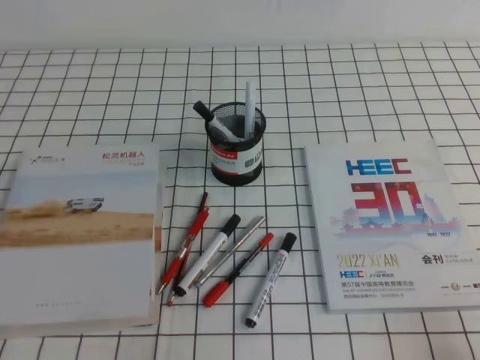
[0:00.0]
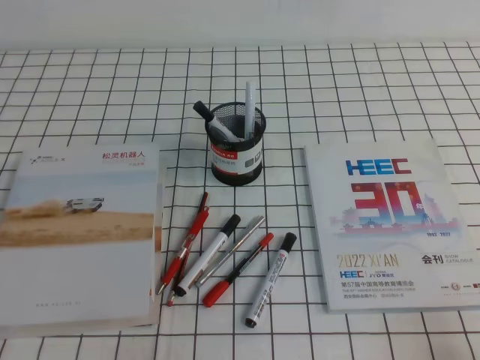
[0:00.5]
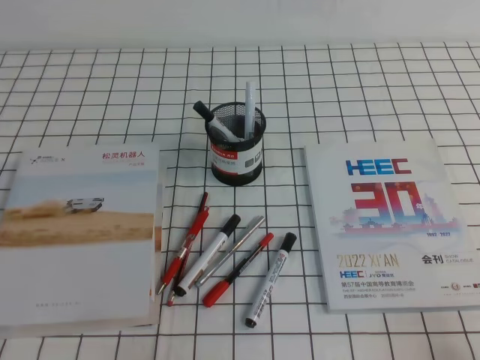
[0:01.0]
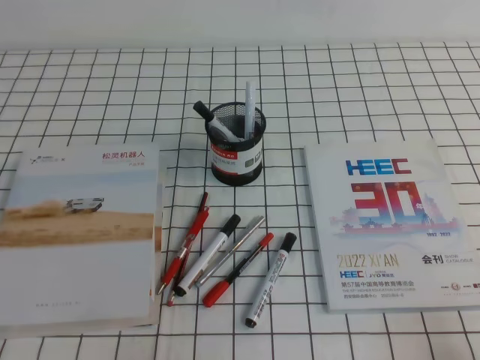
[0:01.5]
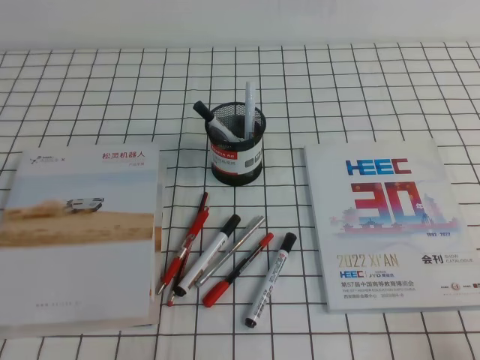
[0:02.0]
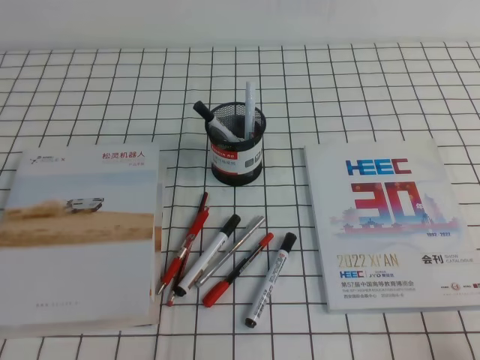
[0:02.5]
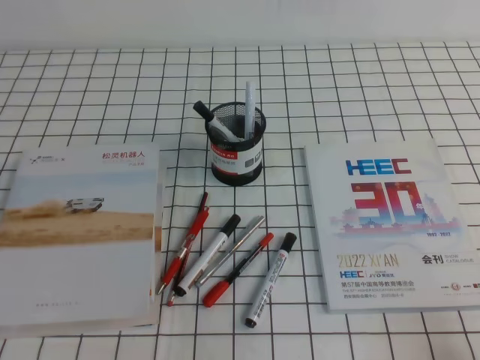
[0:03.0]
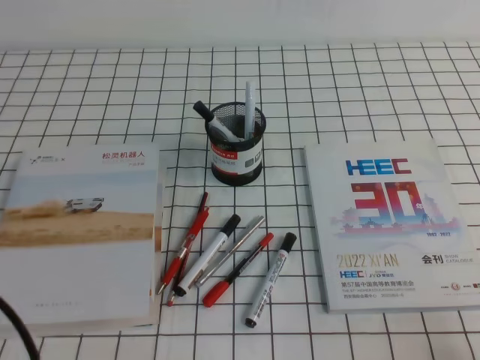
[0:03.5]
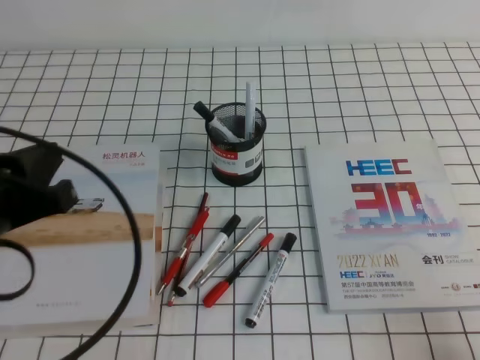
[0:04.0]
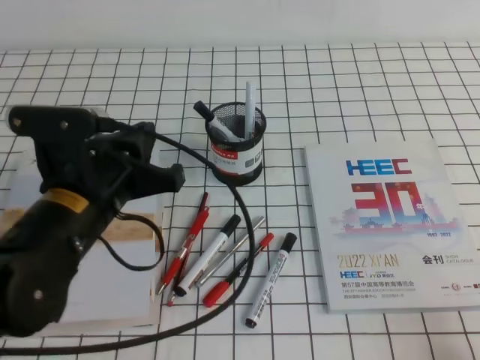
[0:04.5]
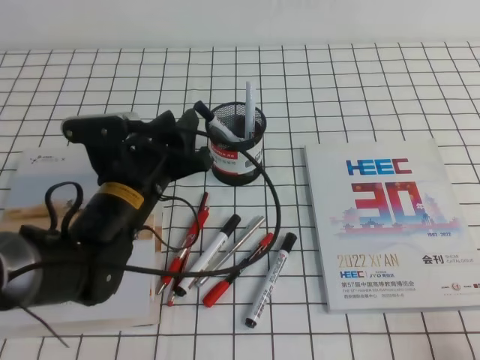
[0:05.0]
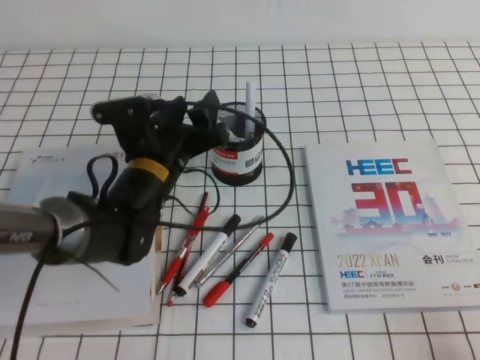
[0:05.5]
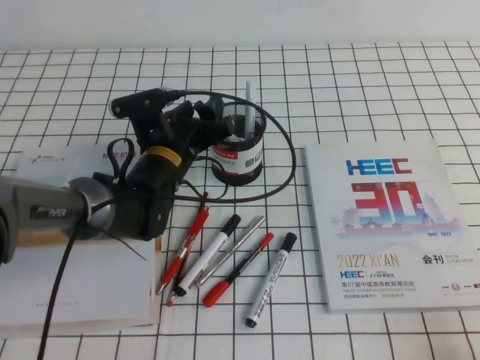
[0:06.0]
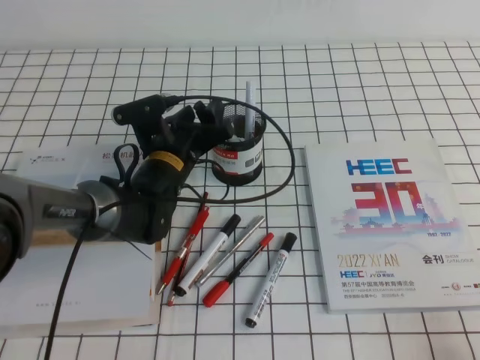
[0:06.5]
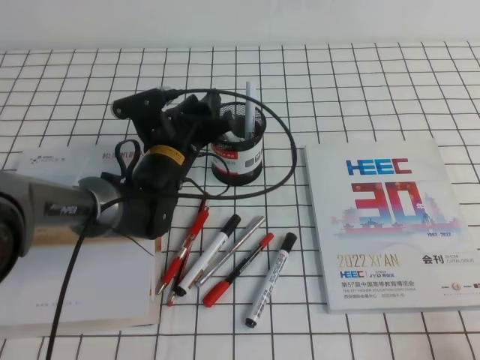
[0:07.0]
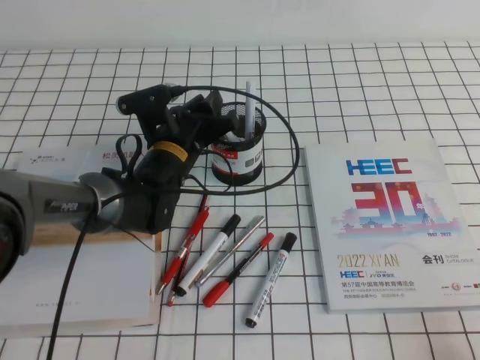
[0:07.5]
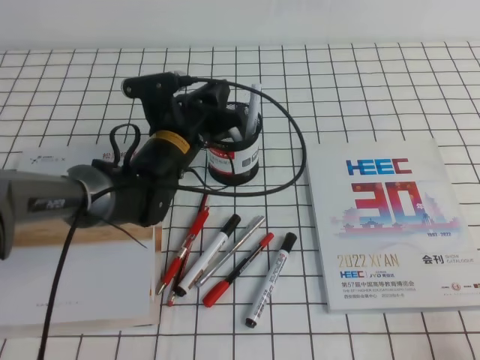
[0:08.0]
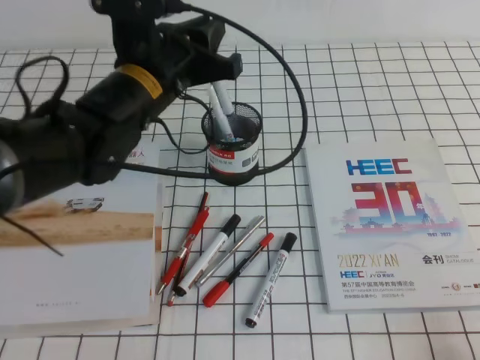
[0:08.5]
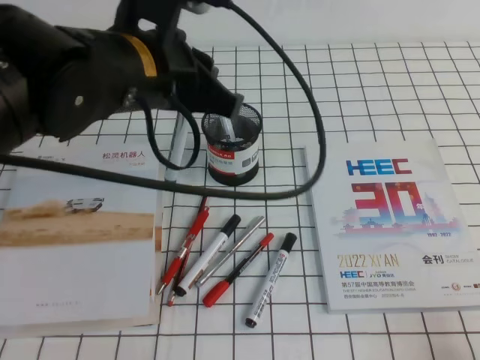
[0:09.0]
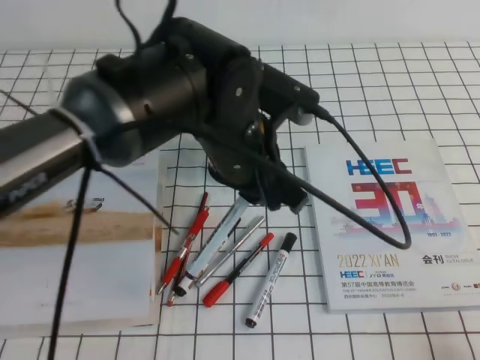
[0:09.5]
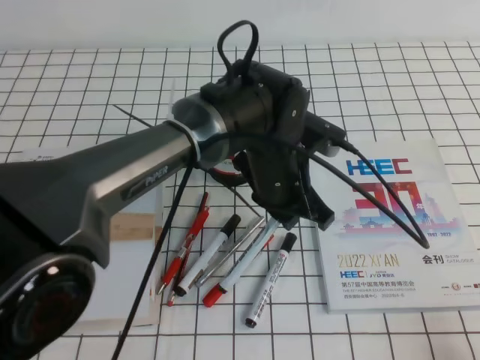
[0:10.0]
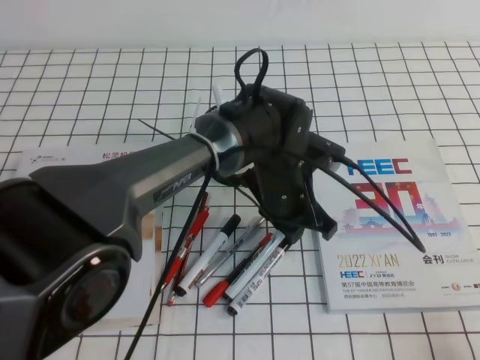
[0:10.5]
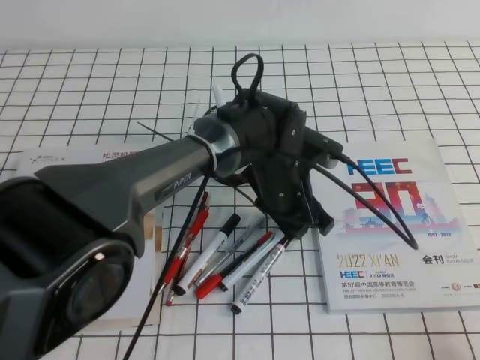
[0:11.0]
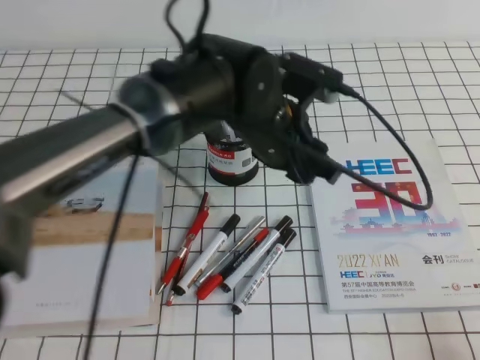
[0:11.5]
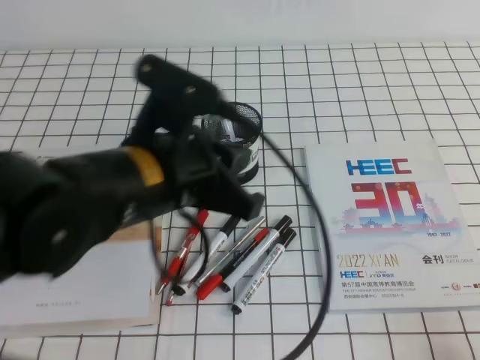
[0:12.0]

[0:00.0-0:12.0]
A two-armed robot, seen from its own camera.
0:02.0 to 0:04.0: The left gripper travels upward, forward and to the right by about 20 cm.
0:04.0 to 0:06.0: The left gripper moves forward, to the right and downward, about 30 cm, and opens its fingers.
0:06.0 to 0:08.0: The left gripper closes up.
0:08.0 to 0:10.0: The left gripper moves to the right and backward, some 15 cm, and travels upward and back again, about 15 cm each way.
0:10.0 to 0:12.0: The left gripper moves to the left, backward and upward, about 15 cm.

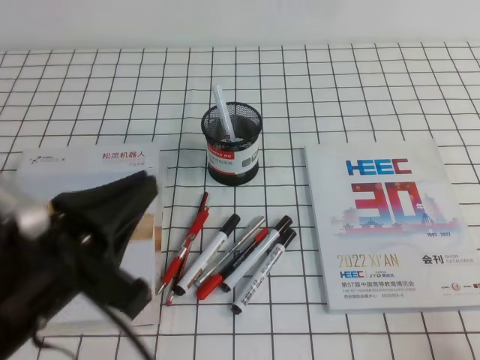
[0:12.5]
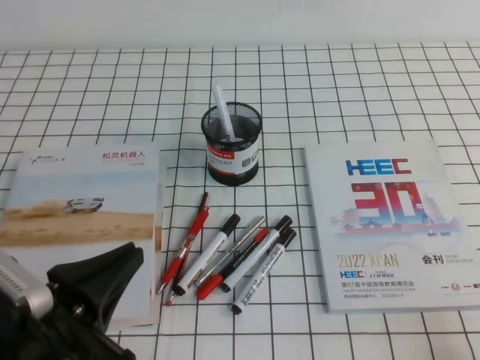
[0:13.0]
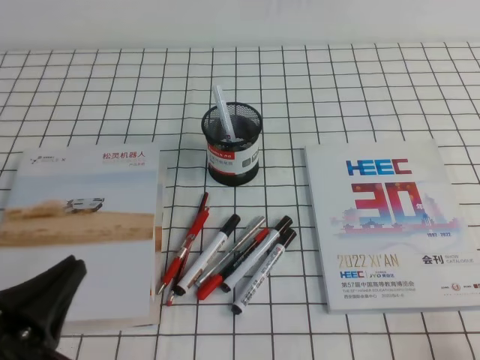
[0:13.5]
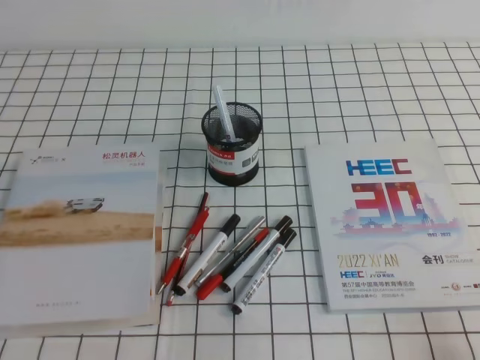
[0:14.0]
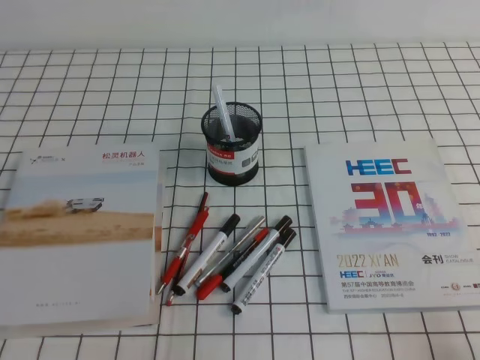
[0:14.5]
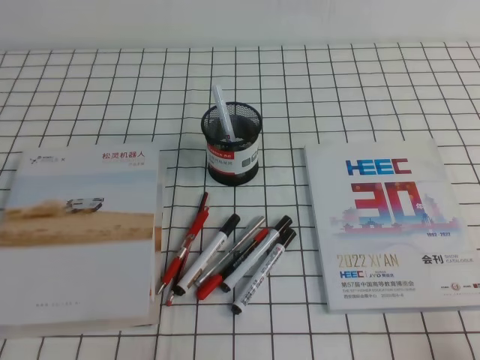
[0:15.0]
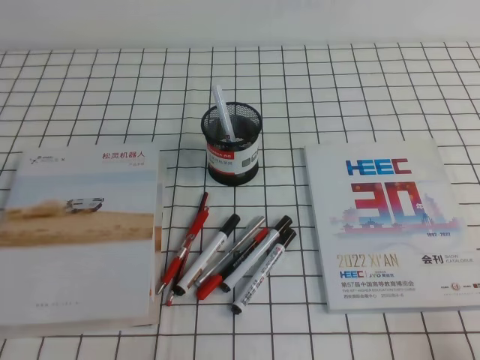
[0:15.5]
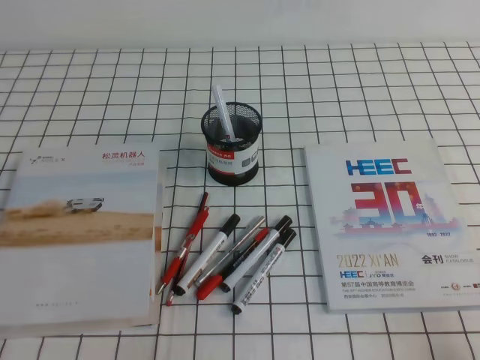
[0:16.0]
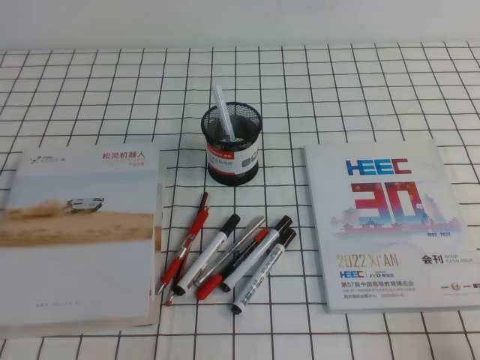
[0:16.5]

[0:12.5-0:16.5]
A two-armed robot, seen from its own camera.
Step, 0:12.5 to 0:16.5: Pick up the pen from the pen holder.
0:12.5 to 0:14.5: The left gripper moves downward, to the left and backward, some 20 cm.

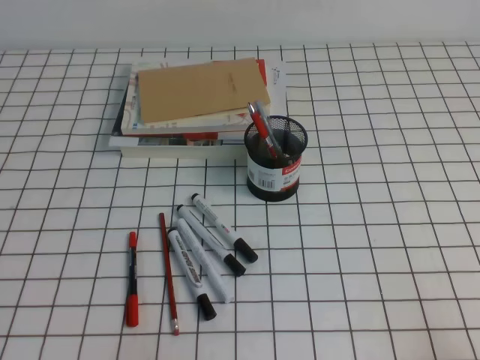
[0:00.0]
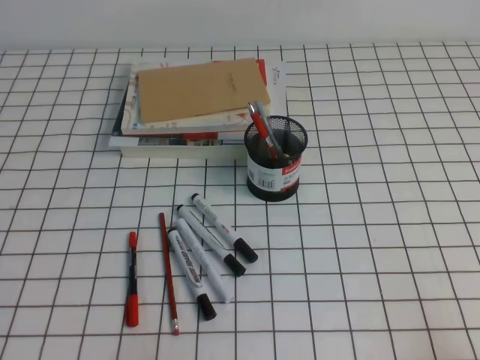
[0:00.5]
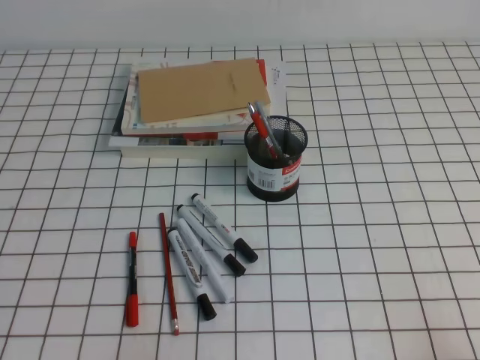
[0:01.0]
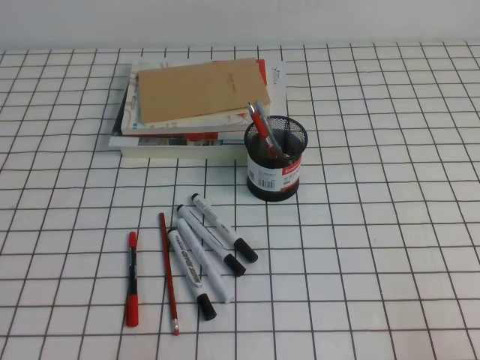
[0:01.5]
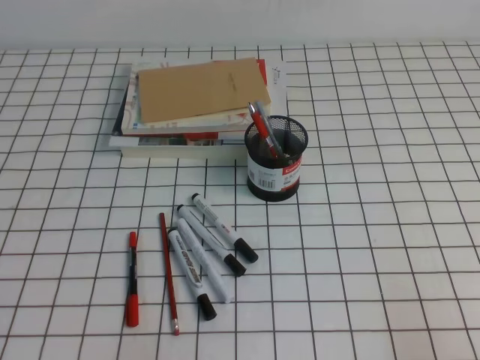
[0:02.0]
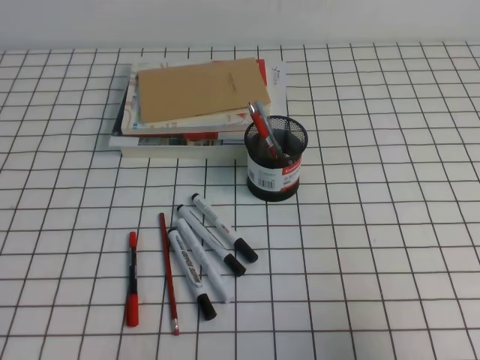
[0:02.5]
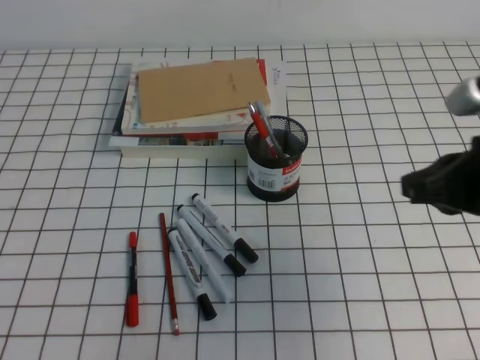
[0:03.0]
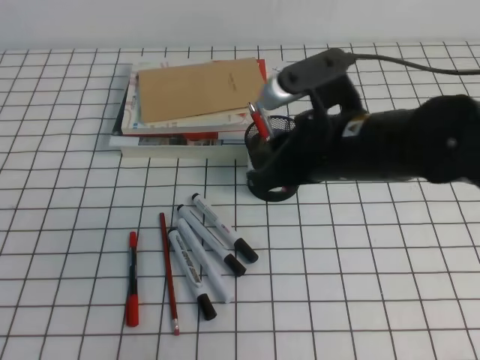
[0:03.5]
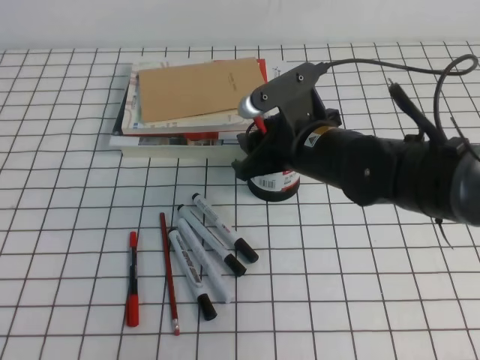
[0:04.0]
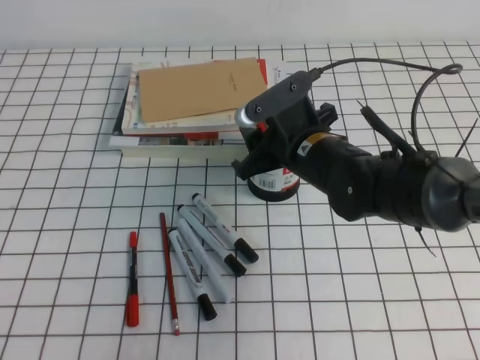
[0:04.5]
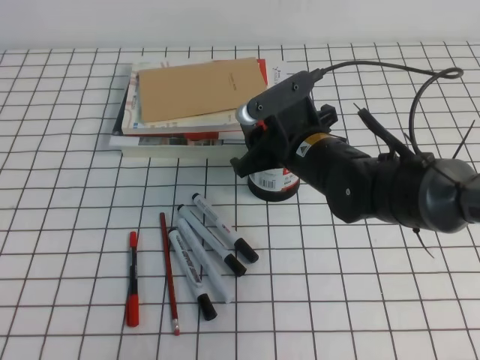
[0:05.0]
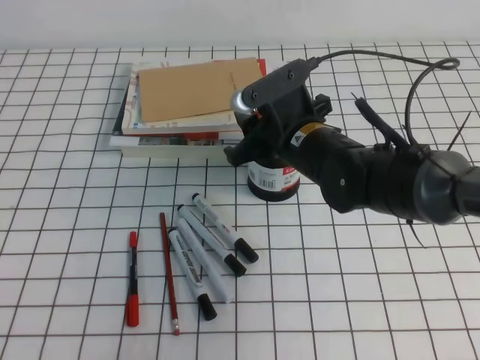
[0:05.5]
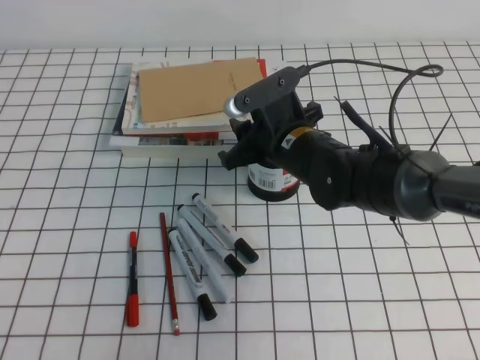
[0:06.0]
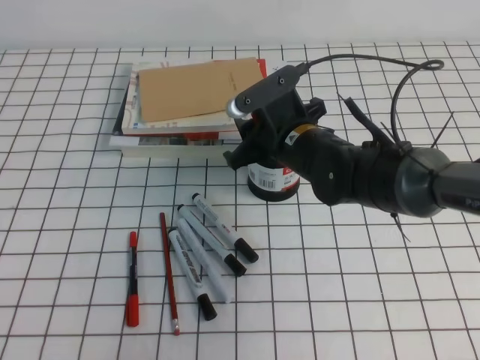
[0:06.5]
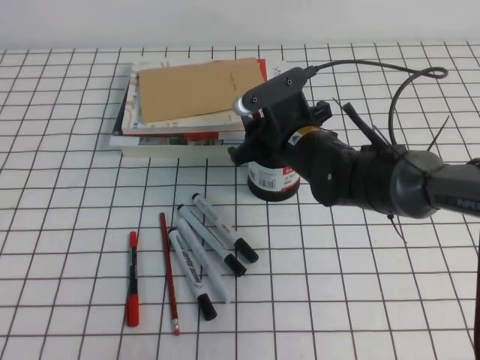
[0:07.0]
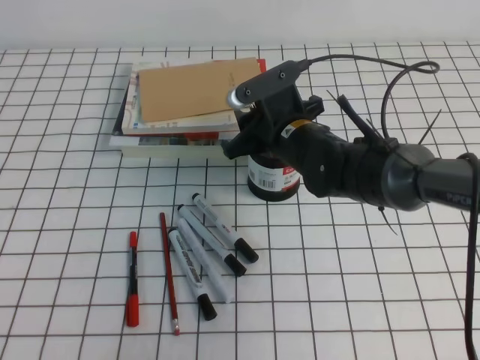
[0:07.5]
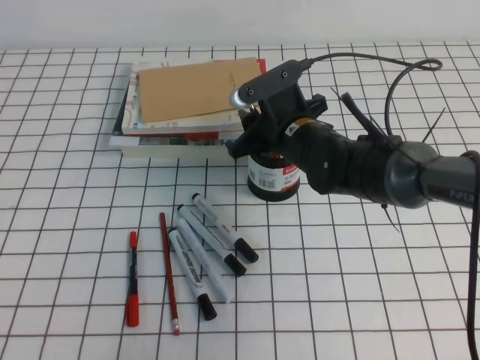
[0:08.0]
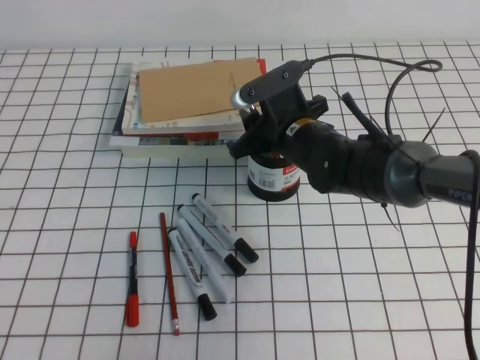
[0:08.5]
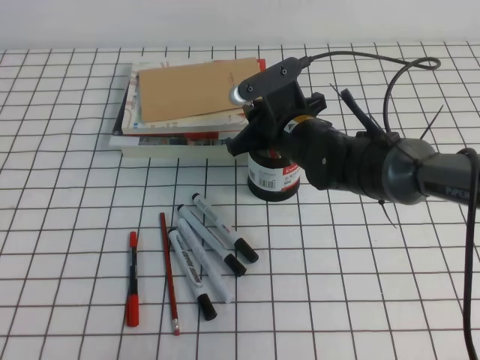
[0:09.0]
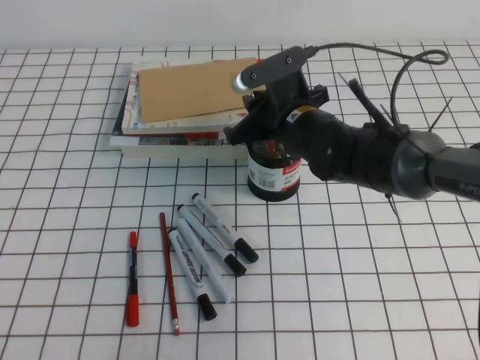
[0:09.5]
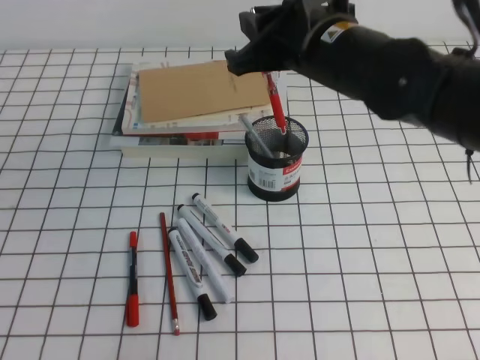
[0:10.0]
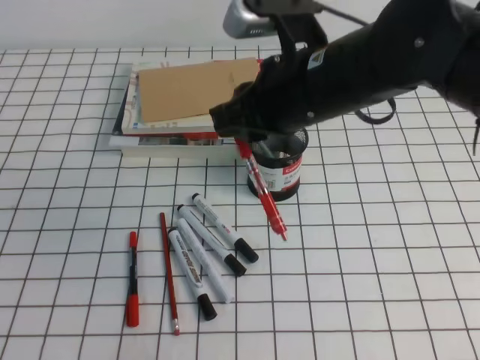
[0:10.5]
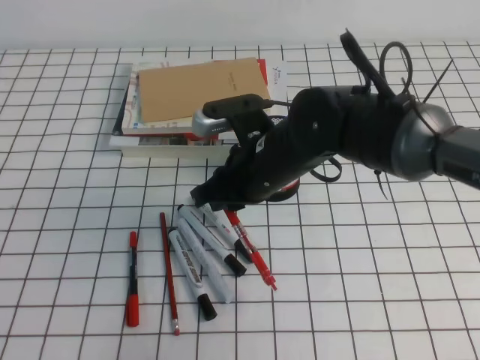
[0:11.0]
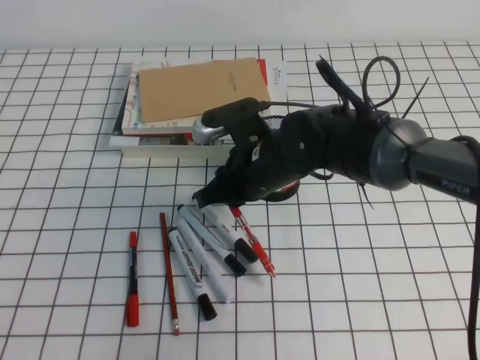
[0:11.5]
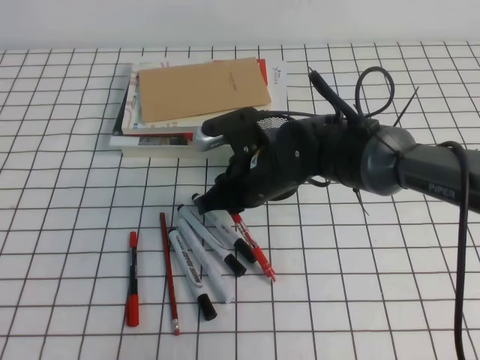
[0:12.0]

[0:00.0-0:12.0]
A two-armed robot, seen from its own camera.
0:02.0 to 0:04.0: The right gripper travels forward and to the left by roughly 35 cm, and opens its fingers.
0:04.0 to 0:06.0: The right gripper changes place by some 5 cm.
0:06.0 to 0:08.0: The grippers move only a little.
0:08.0 to 0:10.0: The right gripper travels upward by some 15 cm, and closes its fingers.
0:10.0 to 0:12.0: The right gripper moves downward, about 15 cm.
